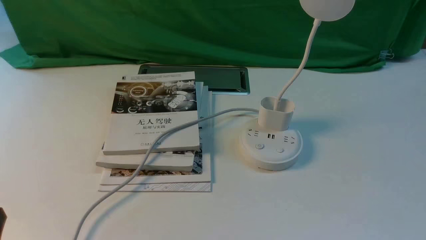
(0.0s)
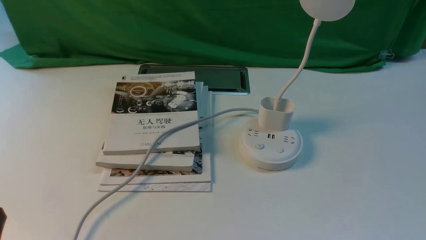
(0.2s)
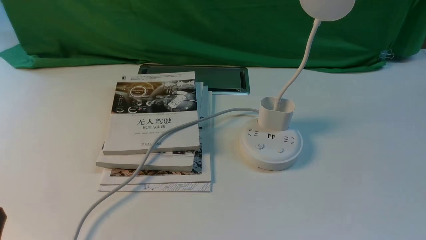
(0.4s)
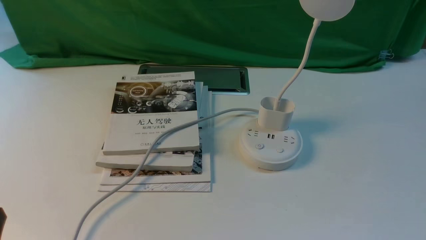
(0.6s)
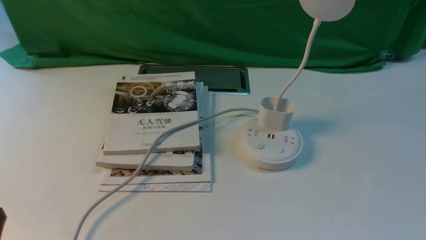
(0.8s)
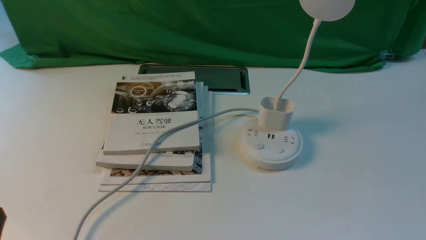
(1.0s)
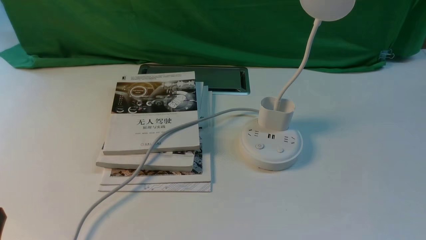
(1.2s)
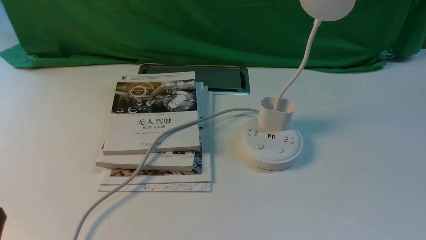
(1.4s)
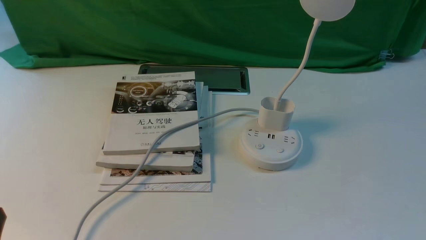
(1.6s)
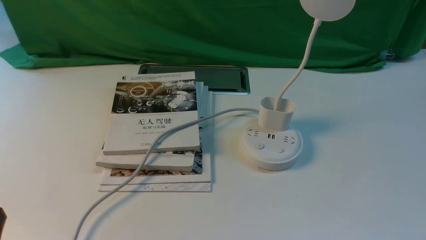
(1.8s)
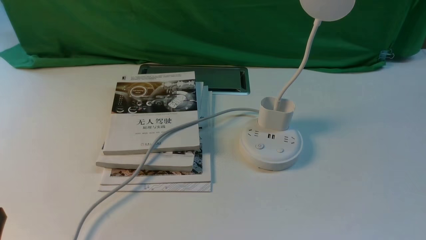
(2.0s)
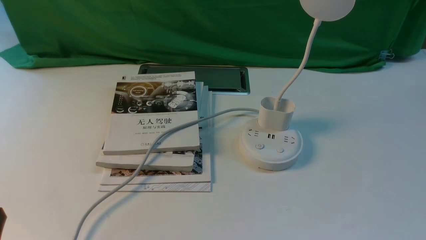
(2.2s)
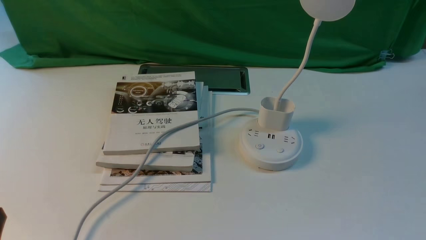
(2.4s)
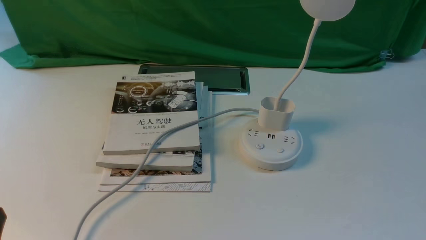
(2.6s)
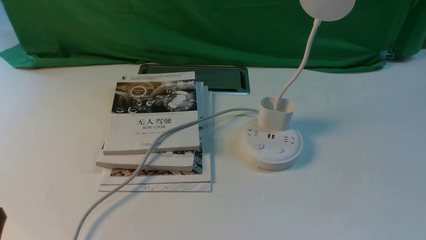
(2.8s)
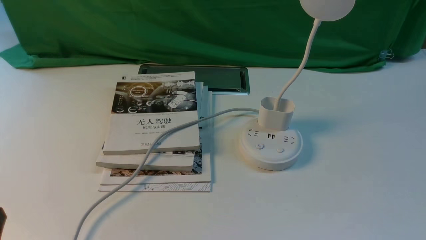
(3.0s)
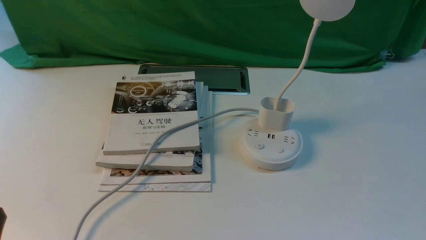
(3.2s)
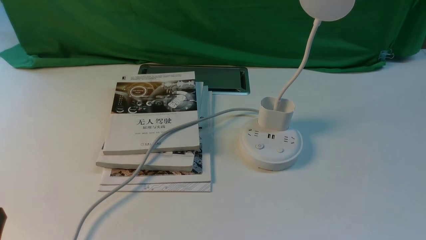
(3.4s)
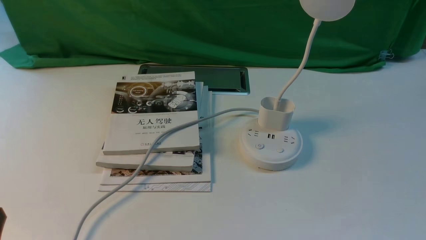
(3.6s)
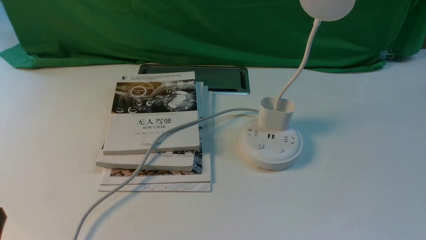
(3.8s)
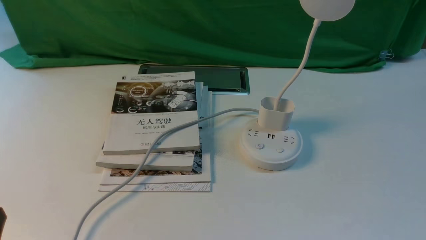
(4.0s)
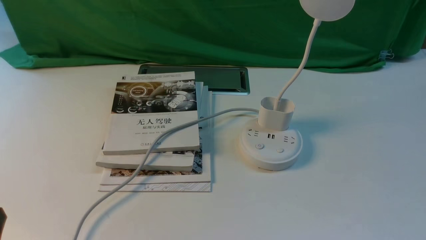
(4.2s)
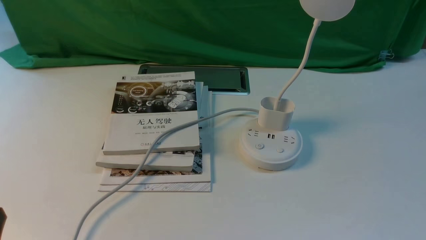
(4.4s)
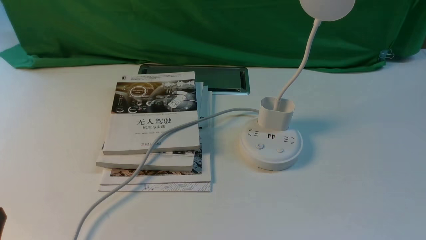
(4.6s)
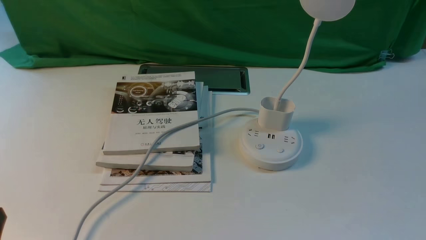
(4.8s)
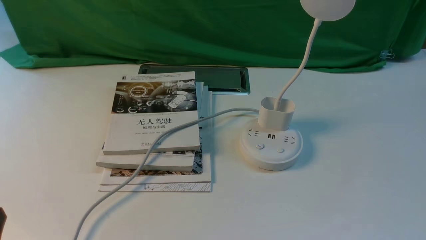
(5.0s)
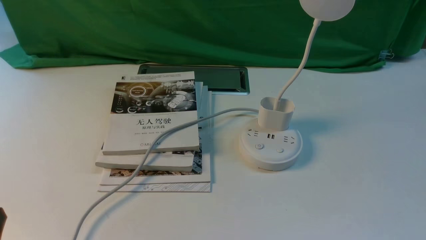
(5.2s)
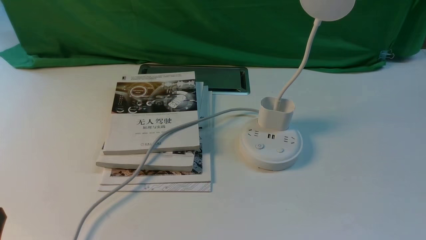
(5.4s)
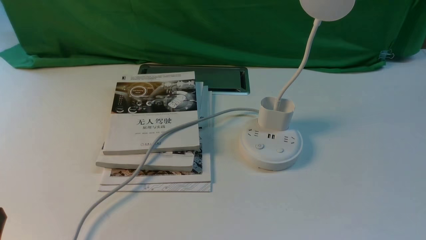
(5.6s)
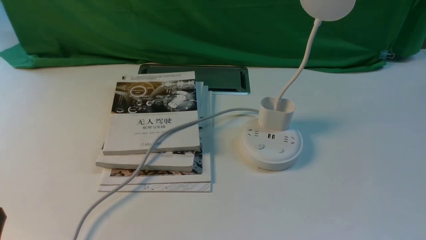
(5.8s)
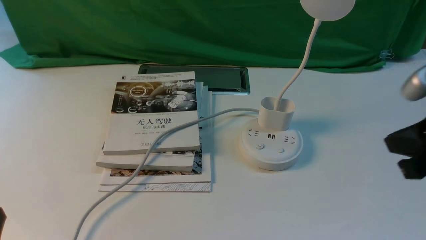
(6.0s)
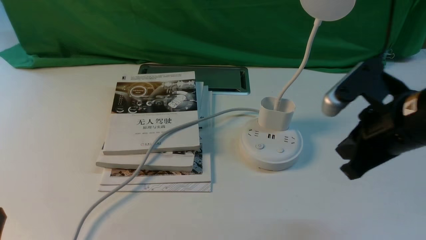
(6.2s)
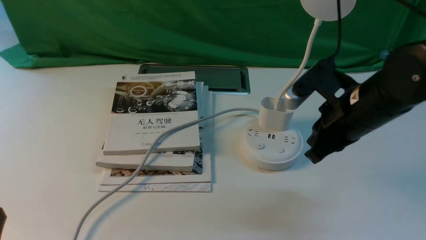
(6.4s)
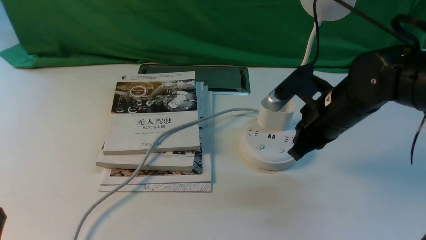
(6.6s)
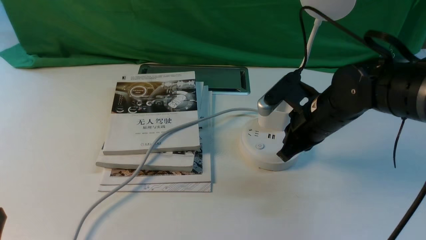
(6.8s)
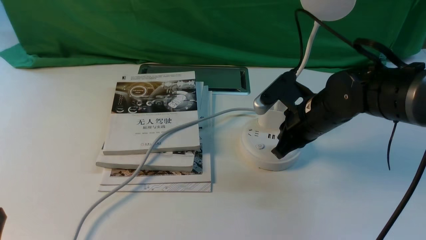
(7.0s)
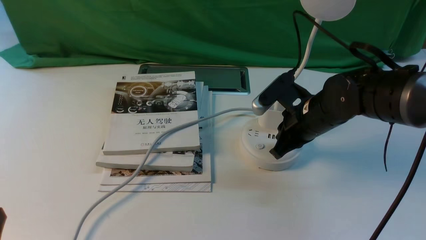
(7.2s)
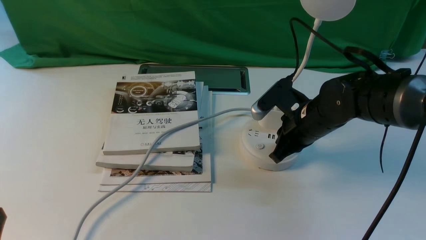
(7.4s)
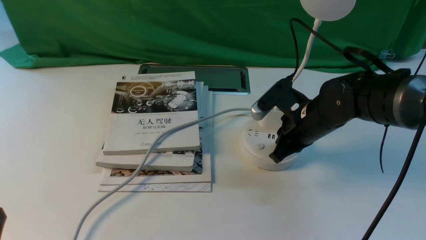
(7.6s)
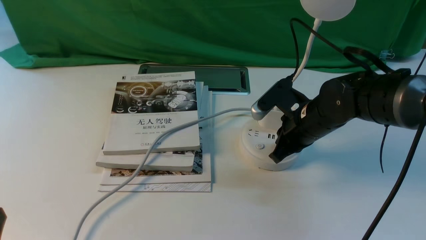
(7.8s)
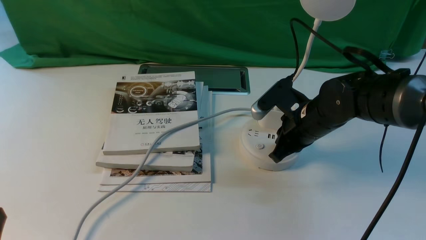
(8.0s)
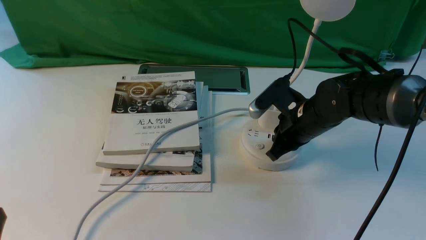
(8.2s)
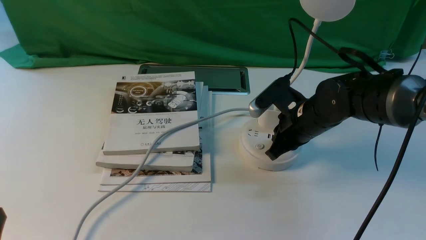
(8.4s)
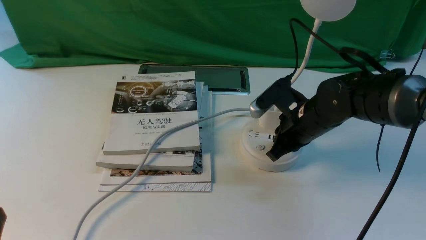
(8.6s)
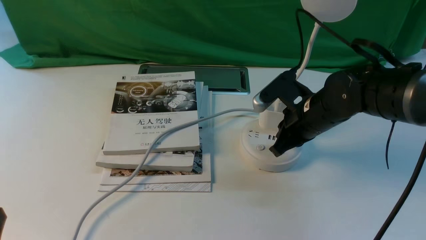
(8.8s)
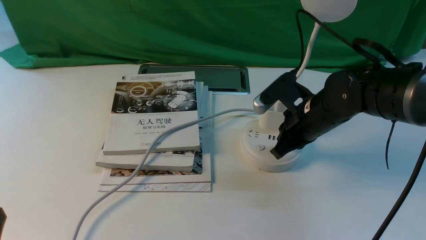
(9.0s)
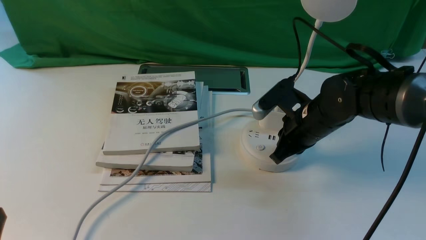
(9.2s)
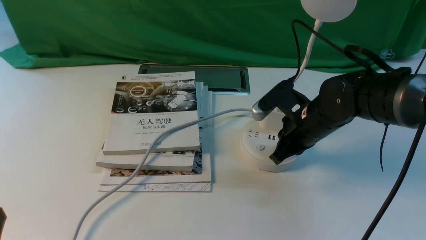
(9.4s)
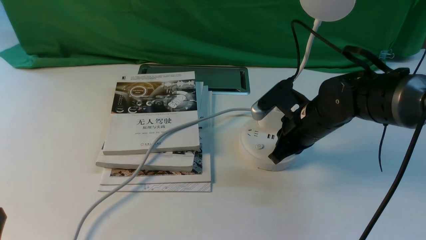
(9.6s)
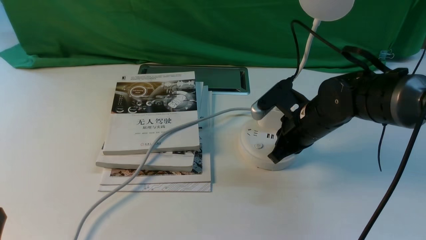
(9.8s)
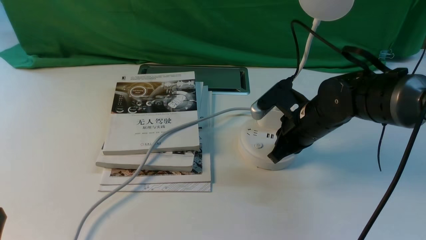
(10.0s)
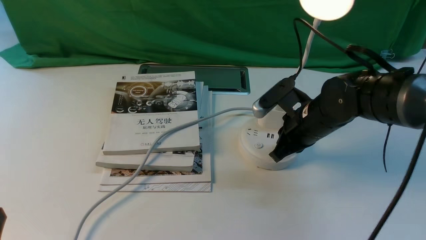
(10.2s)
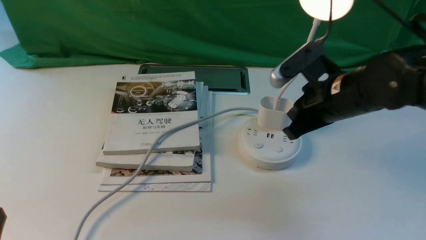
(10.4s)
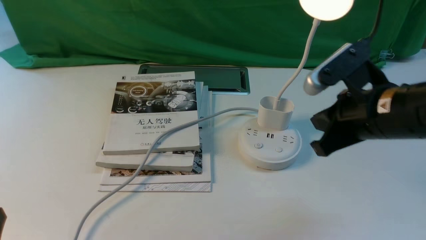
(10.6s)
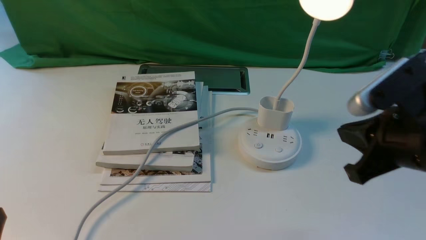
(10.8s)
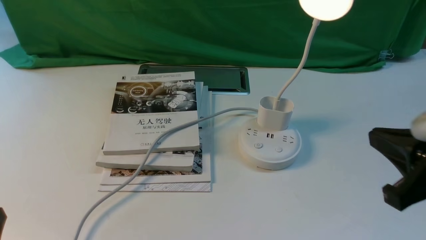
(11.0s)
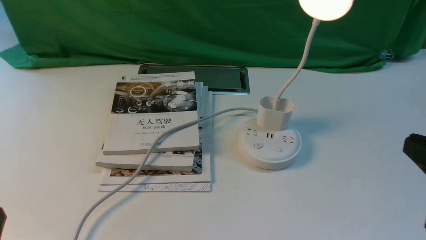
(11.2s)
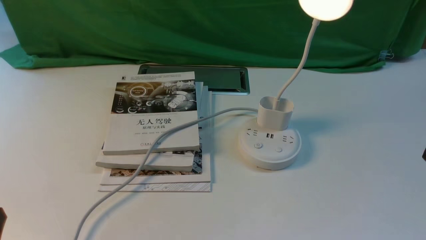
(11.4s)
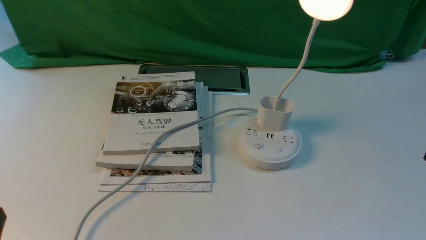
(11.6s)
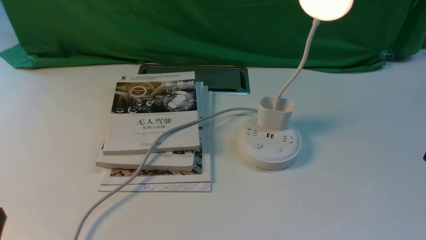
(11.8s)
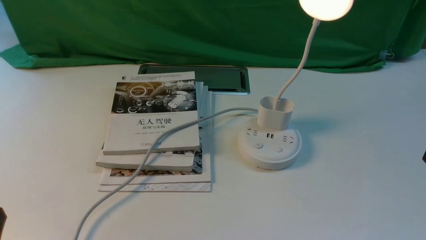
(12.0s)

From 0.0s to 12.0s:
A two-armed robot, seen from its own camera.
Step, from 0.0s to 10.4s: use the right arm to press the button switch on the lamp holder.
From 4.4s to 6.0s: The right gripper moves upward and forward, some 15 cm, and closes up.
From 6.0s to 7.6s: The right gripper heads forward, downward and to the left, covering some 25 cm.
From 7.6s to 9.0s: Both grippers stay about where they are.
From 9.0s to 10.4s: The grippers move only a little.
From 10.4s to 12.0s: The right gripper is displaced backward and to the right by about 30 cm.
